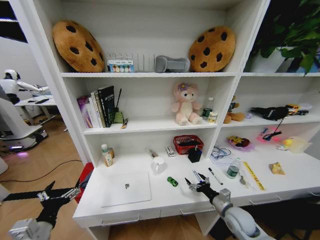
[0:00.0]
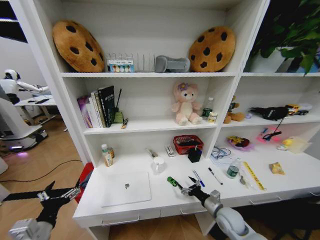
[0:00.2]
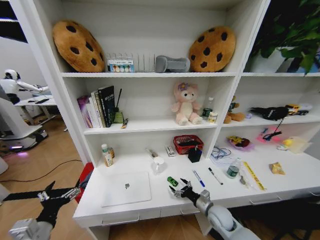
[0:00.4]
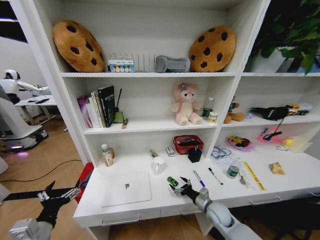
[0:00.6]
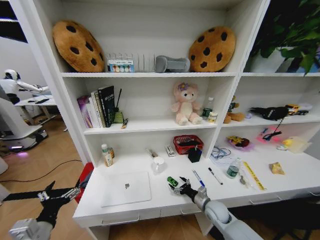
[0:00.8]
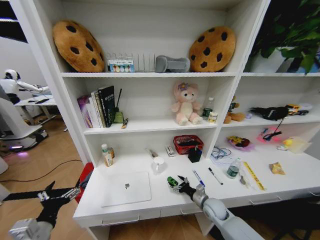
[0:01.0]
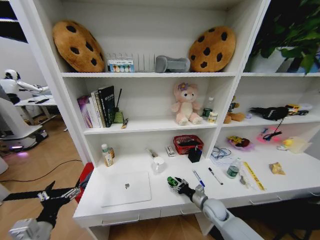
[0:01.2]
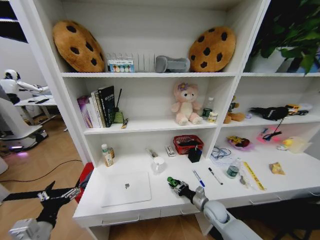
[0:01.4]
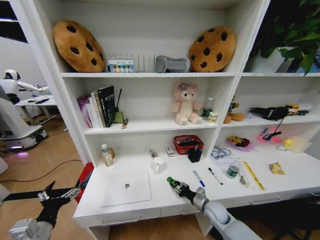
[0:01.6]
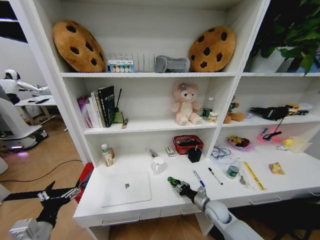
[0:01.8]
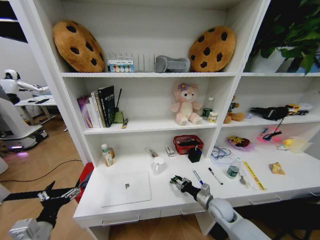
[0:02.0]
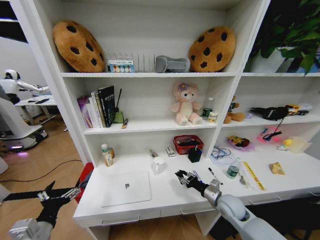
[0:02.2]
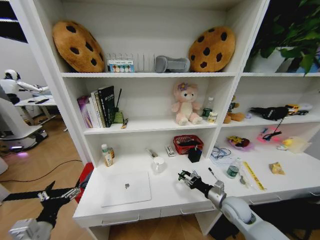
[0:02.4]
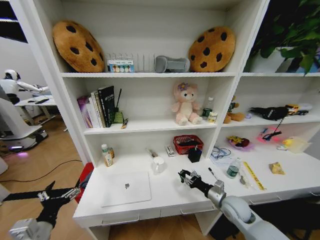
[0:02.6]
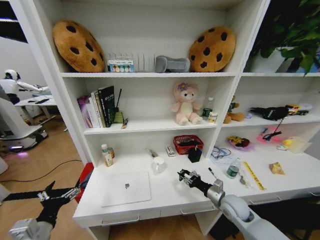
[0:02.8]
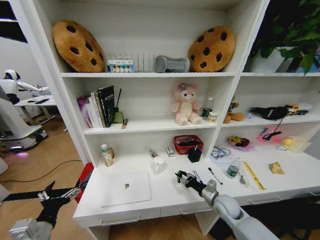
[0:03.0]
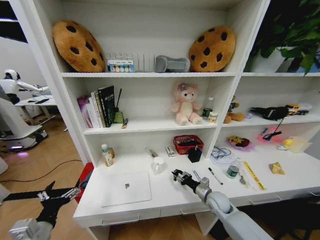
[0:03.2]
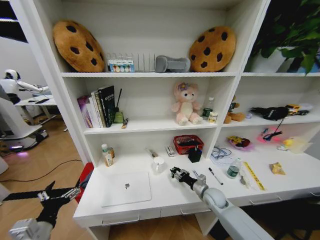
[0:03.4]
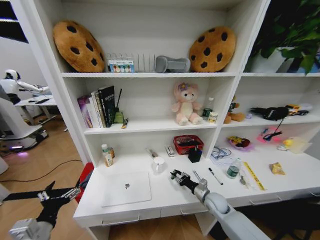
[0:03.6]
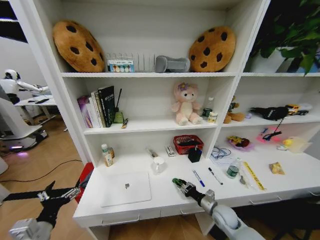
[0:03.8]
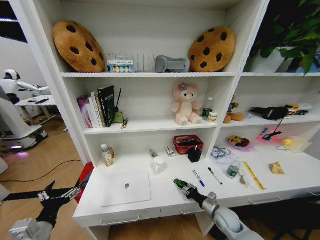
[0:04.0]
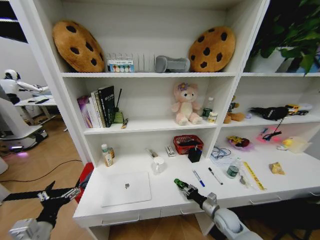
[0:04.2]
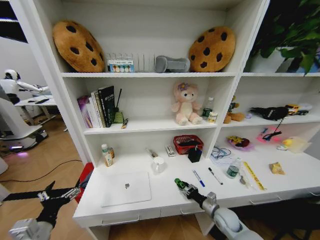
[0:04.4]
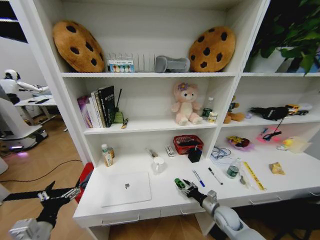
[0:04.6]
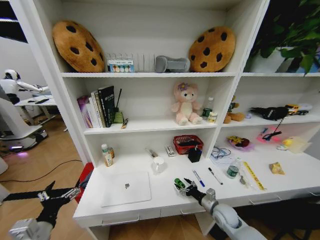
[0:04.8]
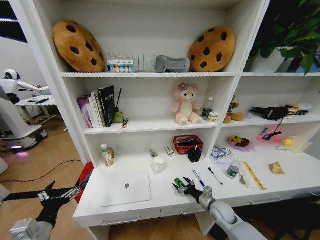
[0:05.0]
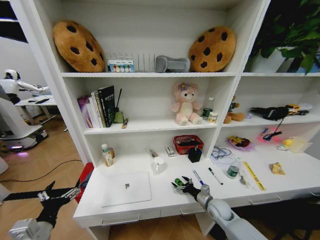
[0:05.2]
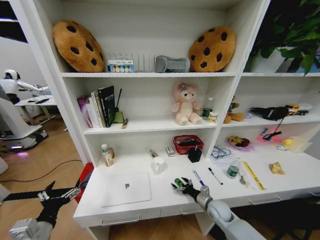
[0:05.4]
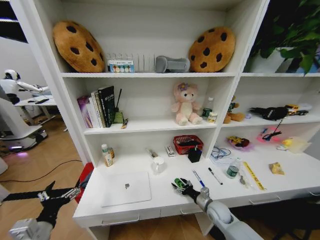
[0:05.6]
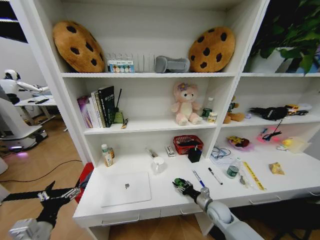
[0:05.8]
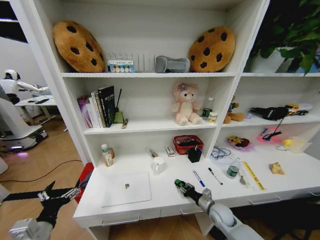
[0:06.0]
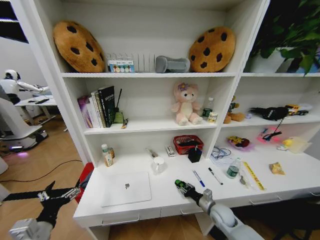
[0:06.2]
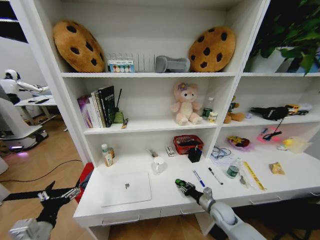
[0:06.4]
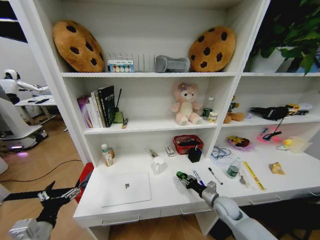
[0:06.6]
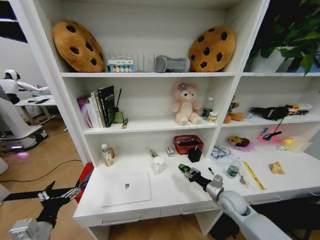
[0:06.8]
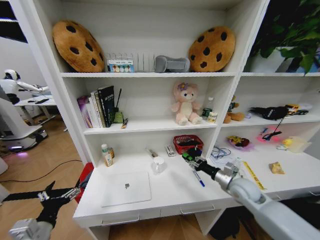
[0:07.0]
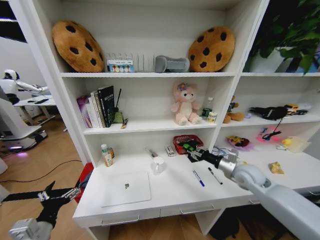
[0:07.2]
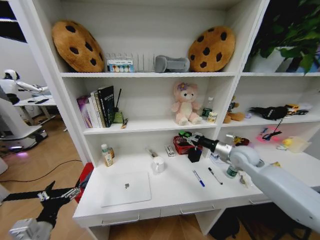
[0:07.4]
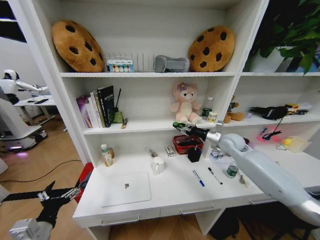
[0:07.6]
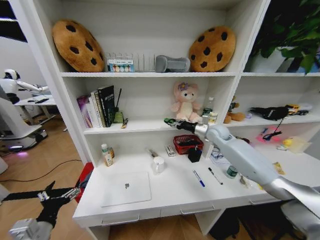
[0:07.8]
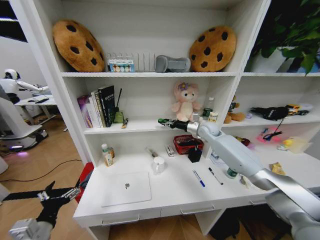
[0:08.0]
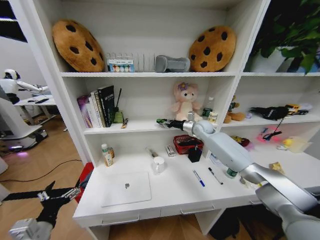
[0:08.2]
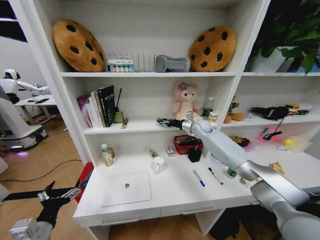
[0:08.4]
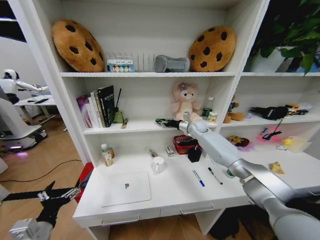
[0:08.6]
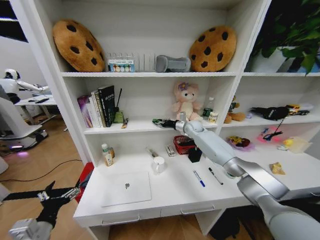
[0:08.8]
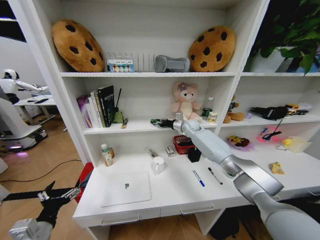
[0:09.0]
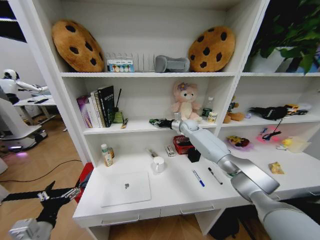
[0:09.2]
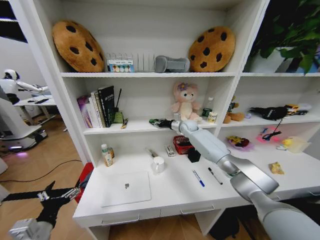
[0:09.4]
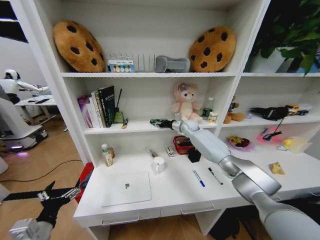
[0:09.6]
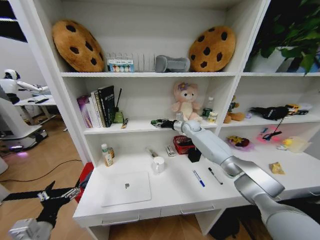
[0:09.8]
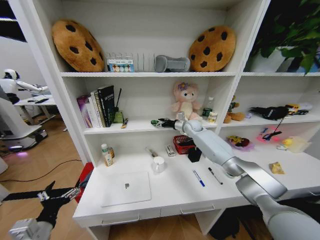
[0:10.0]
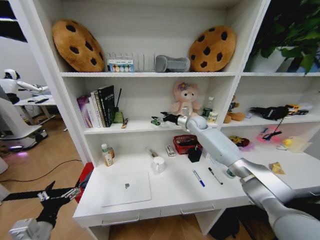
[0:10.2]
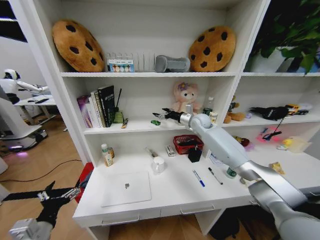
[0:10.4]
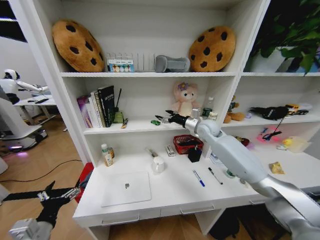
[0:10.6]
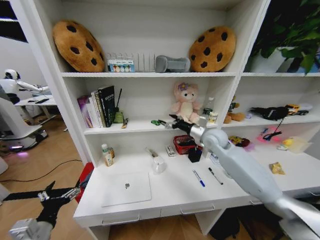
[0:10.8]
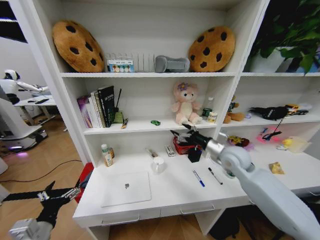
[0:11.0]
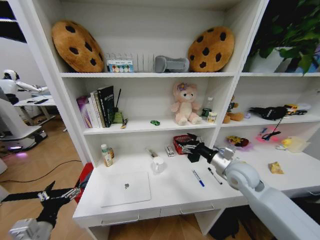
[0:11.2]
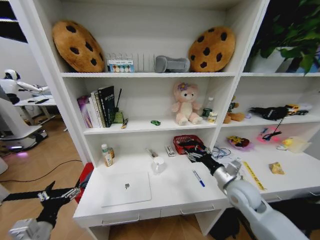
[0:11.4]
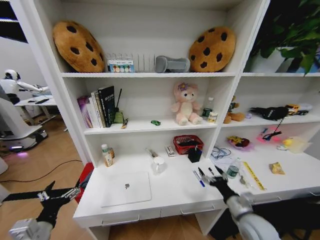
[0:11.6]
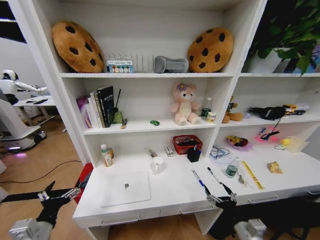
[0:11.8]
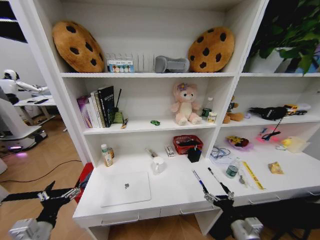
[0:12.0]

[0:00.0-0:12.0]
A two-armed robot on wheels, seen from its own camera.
Task of the whole recording: Organize the objects on the table.
0:00.0 to 0:01.6: The right gripper goes some 10 cm downward, to the left and forward, and closes its fingers.
0:01.6 to 0:03.0: The right gripper travels upward by about 5 cm.
0:03.0 to 0:04.4: The right gripper travels downward by approximately 5 cm.
0:04.4 to 0:06.0: The right gripper opens, then closes again.
0:06.0 to 0:07.6: The right gripper travels upward and forward by approximately 35 cm.
0:07.6 to 0:09.0: The right gripper moves forward and to the left, about 20 cm.
0:09.0 to 0:10.4: The right gripper goes roughly 10 cm upward and backward, and opens.
0:10.4 to 0:12.0: The right gripper is displaced backward and downward by roughly 50 cm.

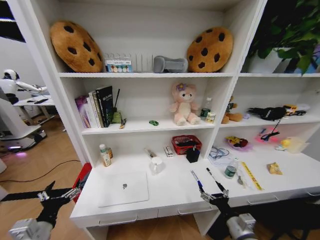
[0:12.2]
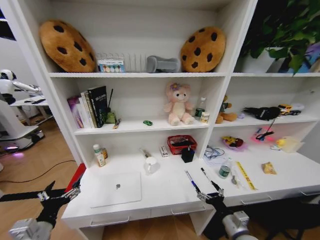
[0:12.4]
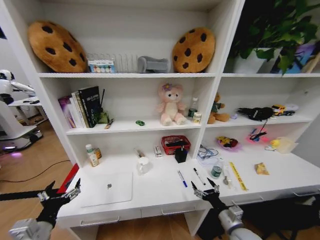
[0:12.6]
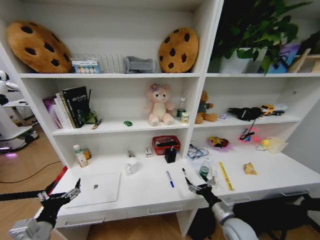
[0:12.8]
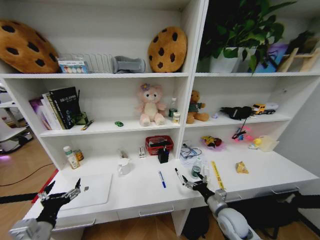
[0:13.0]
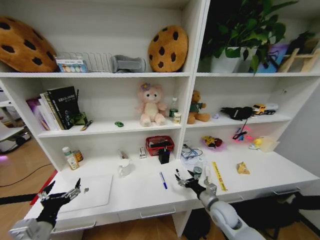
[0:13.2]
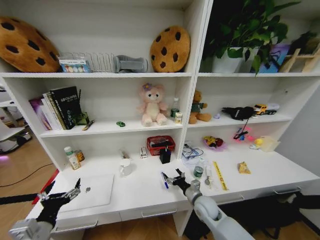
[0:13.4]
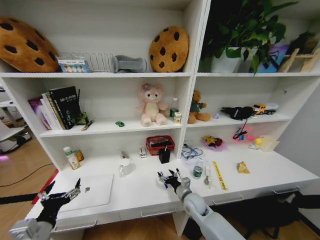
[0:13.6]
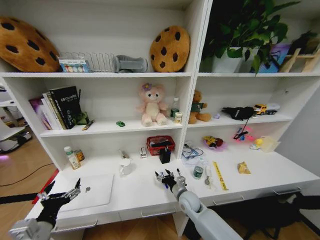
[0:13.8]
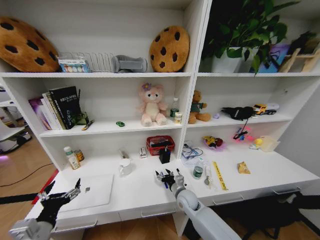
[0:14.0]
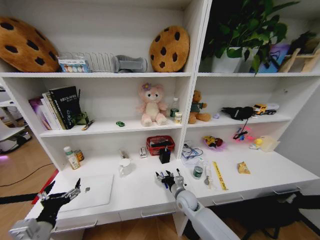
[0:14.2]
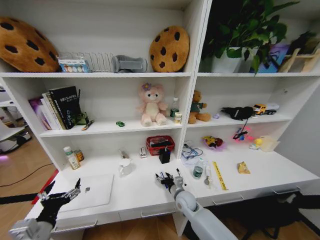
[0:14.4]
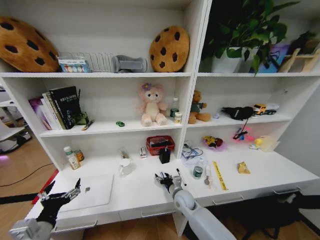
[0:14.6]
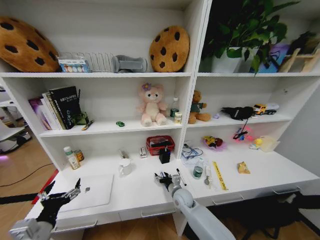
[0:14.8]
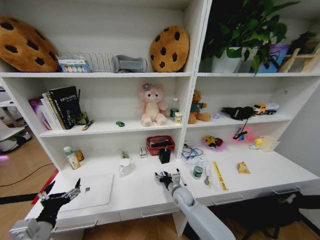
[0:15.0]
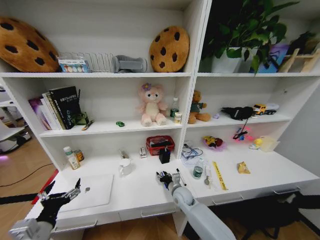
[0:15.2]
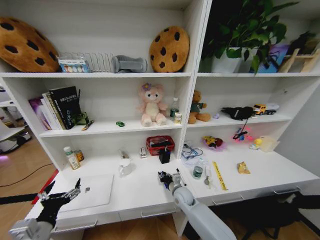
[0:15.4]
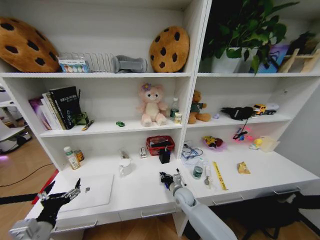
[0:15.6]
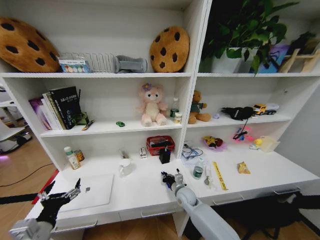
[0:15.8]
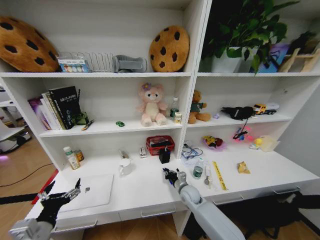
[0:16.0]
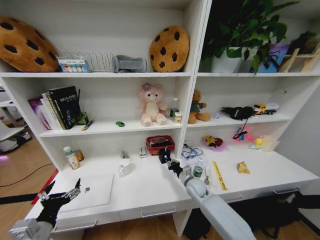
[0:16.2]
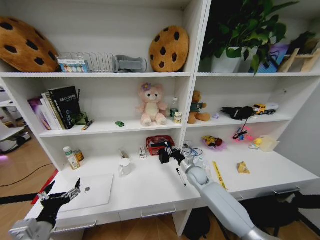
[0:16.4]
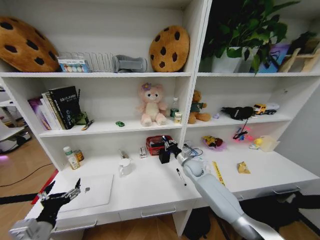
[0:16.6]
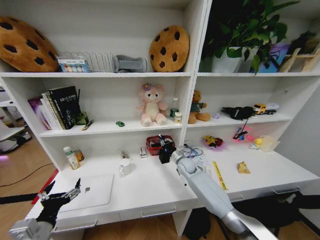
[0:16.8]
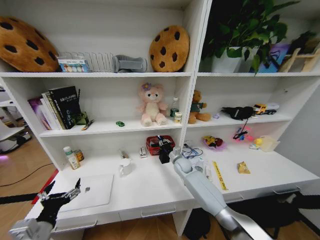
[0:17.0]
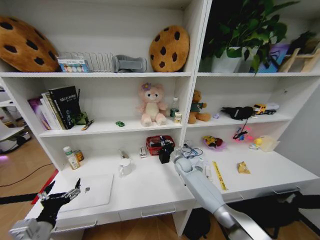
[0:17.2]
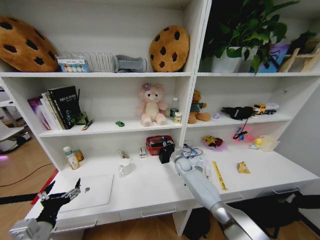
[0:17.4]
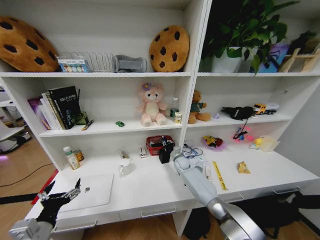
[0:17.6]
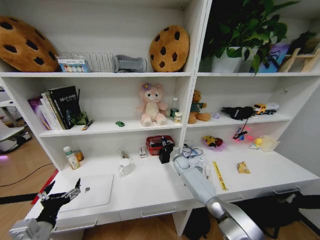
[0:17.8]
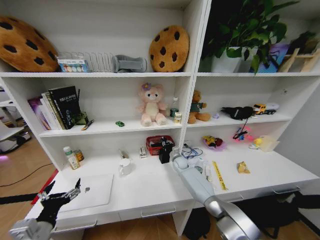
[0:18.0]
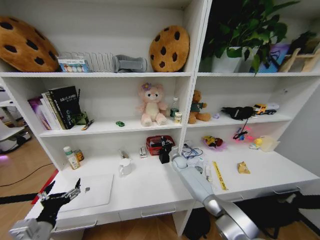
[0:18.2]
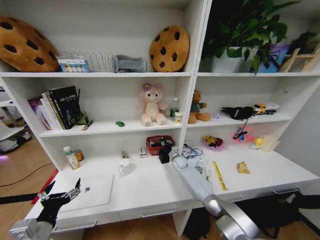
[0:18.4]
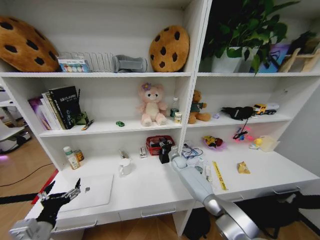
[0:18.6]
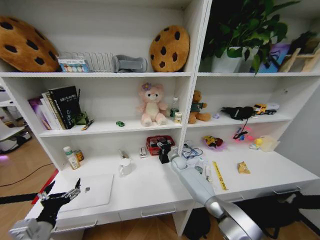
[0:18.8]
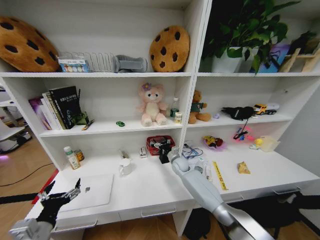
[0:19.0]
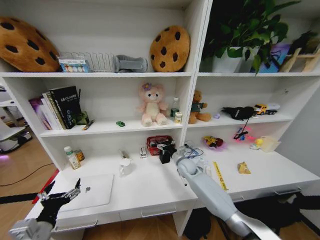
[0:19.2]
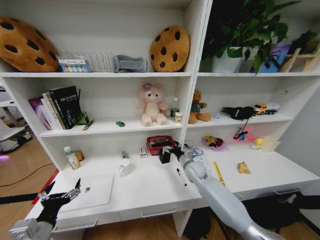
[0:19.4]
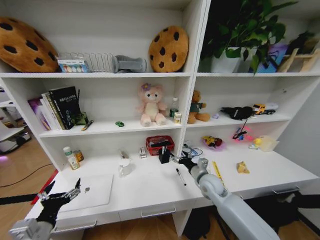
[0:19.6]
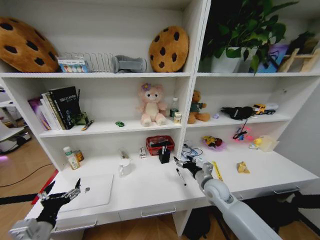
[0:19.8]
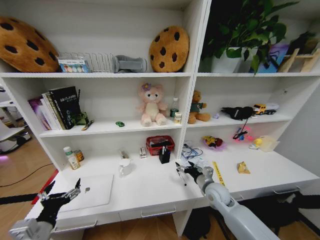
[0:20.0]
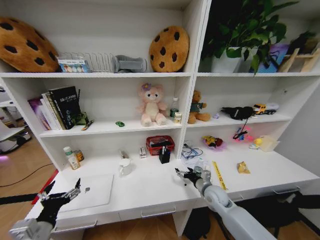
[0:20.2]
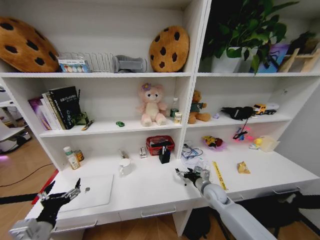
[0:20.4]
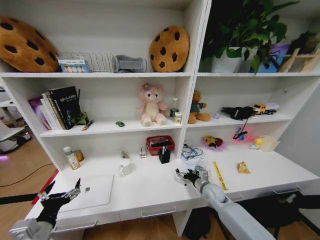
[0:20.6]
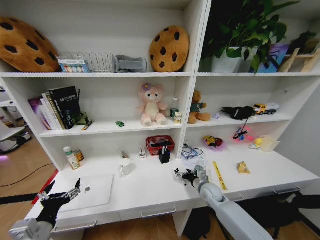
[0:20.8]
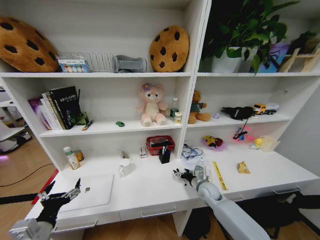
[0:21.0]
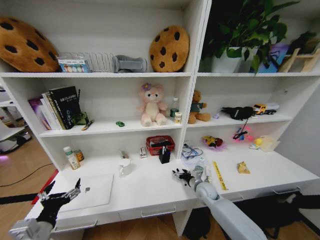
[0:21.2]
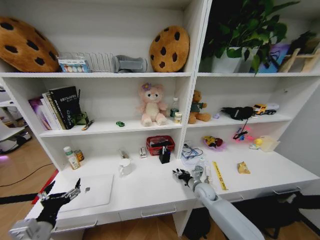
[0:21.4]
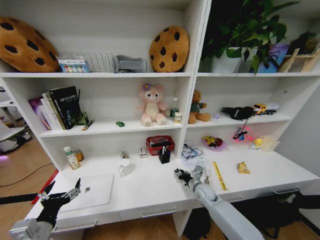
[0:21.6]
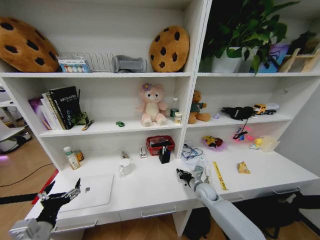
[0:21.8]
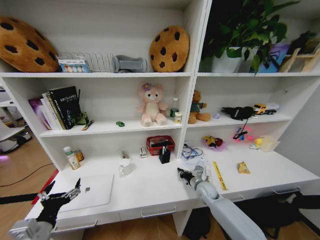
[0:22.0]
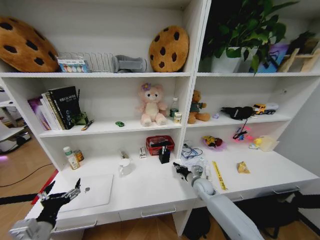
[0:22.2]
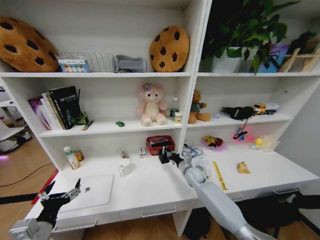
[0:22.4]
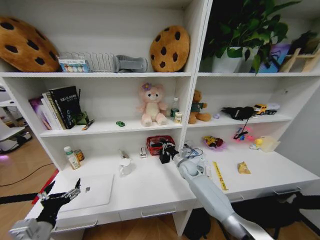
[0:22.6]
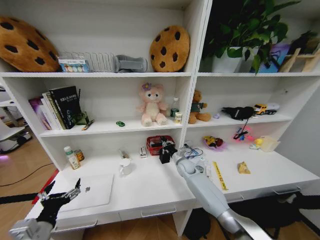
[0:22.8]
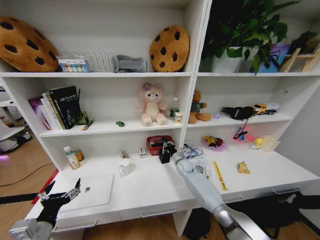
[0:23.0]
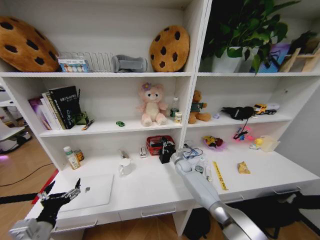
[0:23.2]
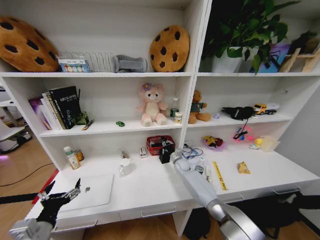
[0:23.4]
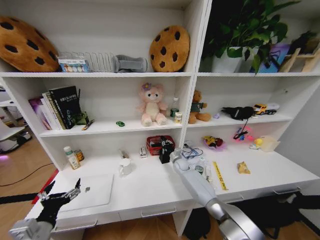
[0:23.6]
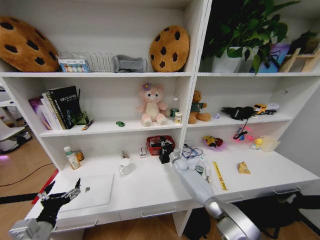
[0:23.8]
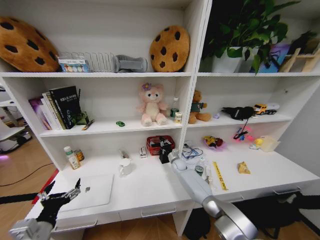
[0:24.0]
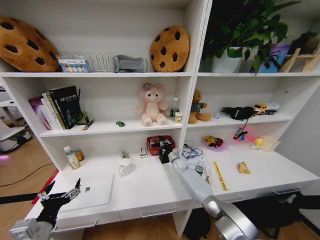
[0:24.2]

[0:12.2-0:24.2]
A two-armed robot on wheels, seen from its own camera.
Task of the whole recording: Organize the objects on the table.
0:12.2 to 0:13.8: The right gripper travels forward and to the left by some 25 cm.
0:13.8 to 0:15.2: The grippers move only a little.
0:15.2 to 0:16.6: The right gripper travels forward, upward and to the right by some 15 cm, and closes its fingers.
0:16.6 to 0:18.2: The right gripper moves forward and downward, roughly 10 cm.
0:18.2 to 0:19.8: The right gripper goes some 25 cm backward and to the right, and opens up.
0:19.8 to 0:21.2: The right gripper moves downward, some 10 cm.
0:21.2 to 0:22.6: The right gripper moves forward, to the left and upward, roughly 15 cm, and closes its fingers.
0:22.6 to 0:24.2: The right gripper is displaced forward and downward by approximately 10 cm.
